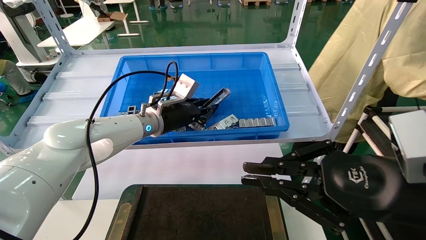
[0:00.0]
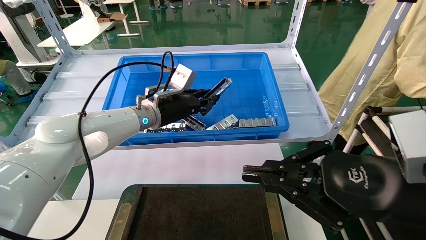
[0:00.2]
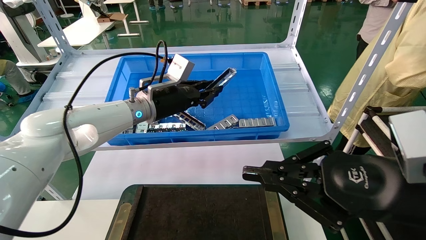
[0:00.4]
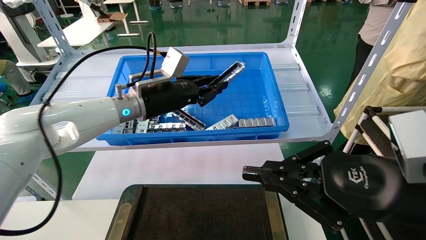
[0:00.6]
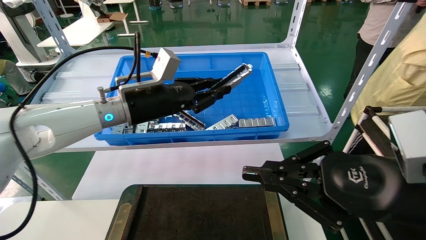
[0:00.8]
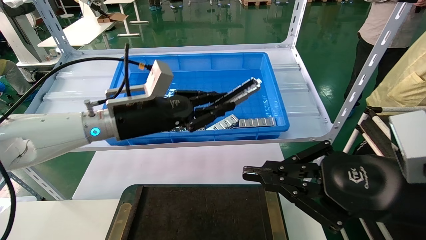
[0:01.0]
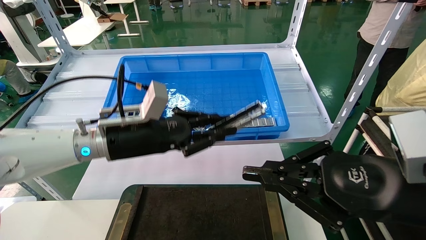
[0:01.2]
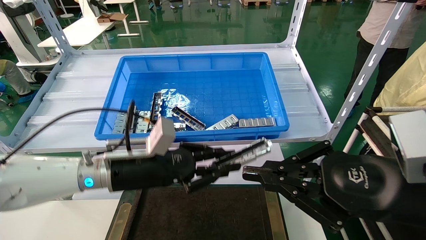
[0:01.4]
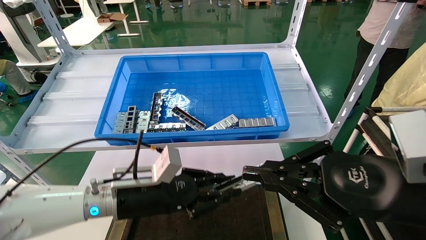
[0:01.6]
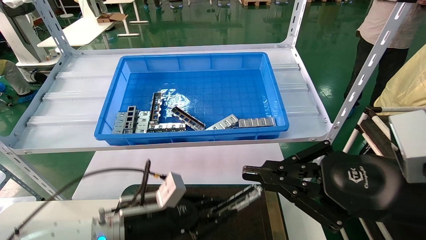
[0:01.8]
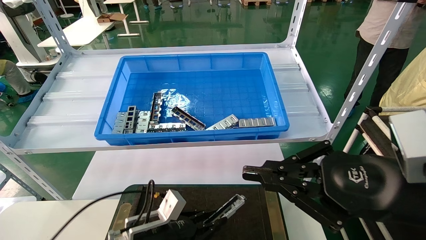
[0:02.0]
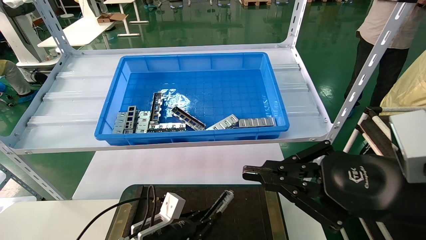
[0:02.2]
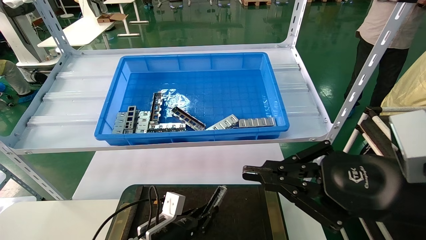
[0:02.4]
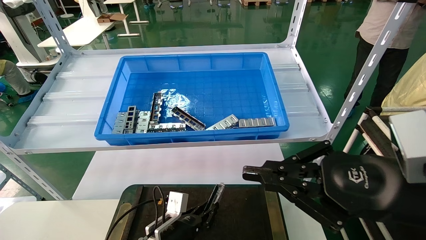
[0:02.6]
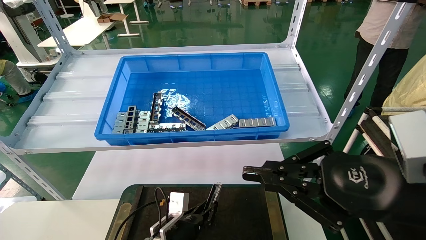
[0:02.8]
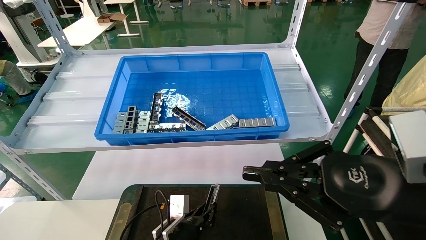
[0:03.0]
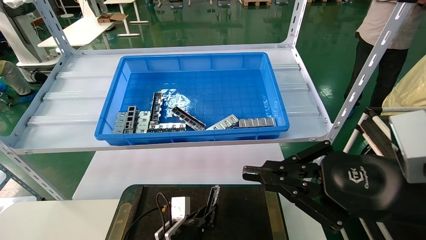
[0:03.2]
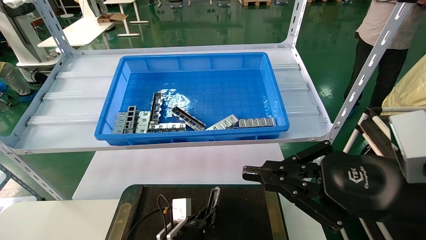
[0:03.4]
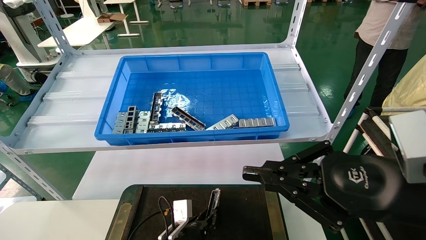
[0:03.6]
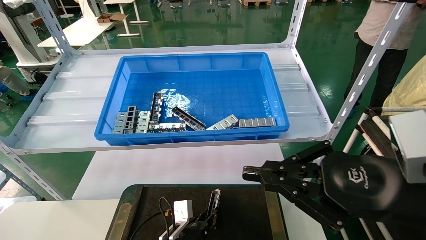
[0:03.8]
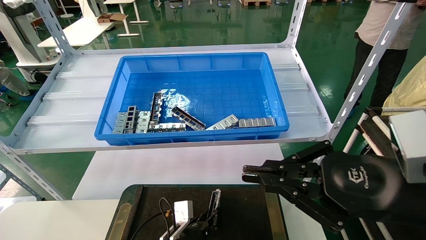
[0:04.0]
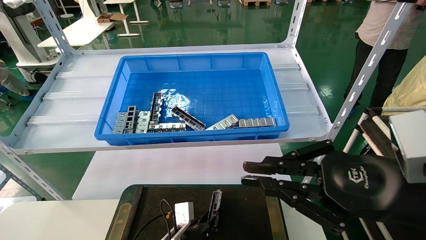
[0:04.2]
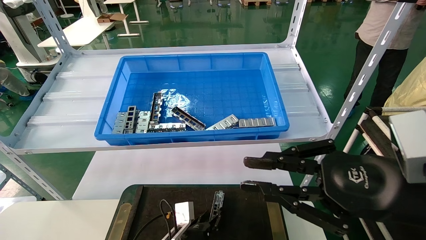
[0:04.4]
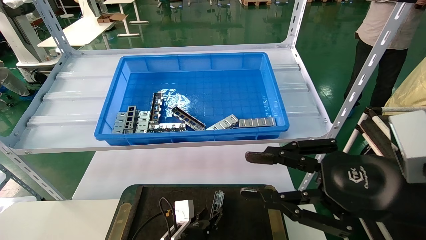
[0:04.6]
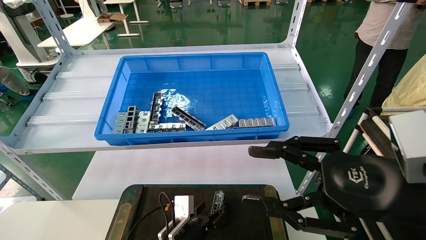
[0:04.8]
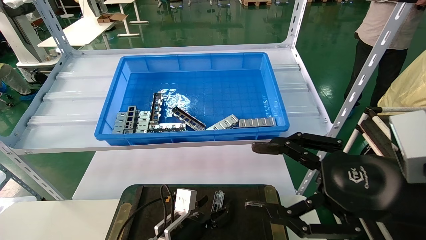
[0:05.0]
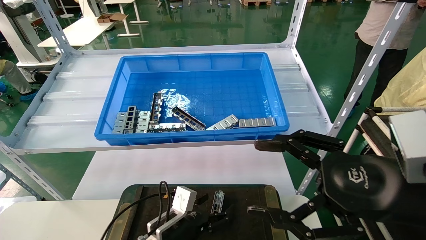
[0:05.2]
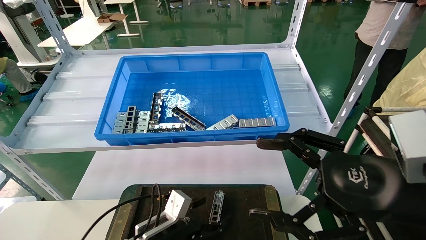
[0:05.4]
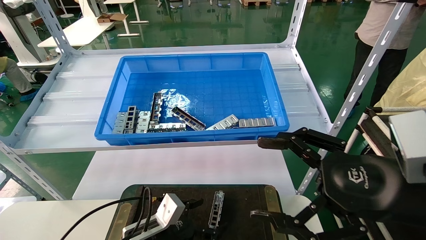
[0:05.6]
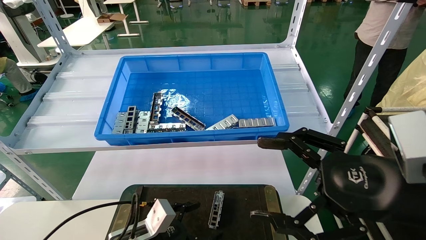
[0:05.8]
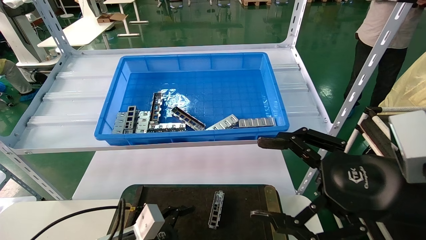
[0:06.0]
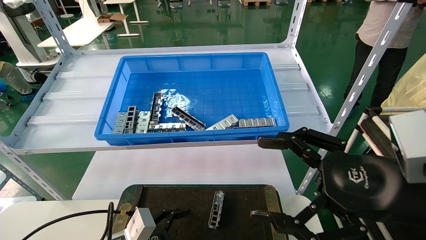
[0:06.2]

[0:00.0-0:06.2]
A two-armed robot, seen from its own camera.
Task of the whole recording: Grasp the part with one hand and place it on the black container.
Step, 0:00.0 to 0:04.2: Place the front USB bracket into the box.
0:00.0 to 0:01.6: The left gripper moves backward and downward, approximately 20 cm.
0:01.6 to 0:03.2: The left gripper goes roughly 20 cm downward.
0:03.2 to 0:04.6: The grippers stay close to where they were, moving slightly.
0:04.6 to 0:06.2: The left gripper moves to the left, backward and upward, roughly 15 cm, and opens. The right gripper opens.

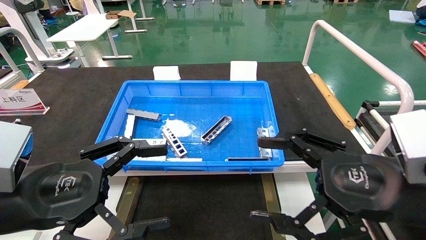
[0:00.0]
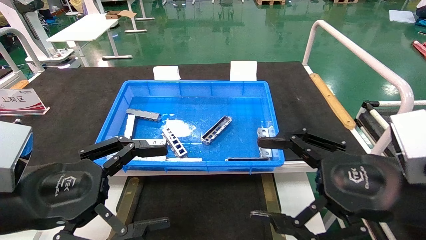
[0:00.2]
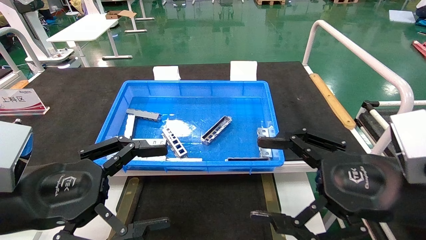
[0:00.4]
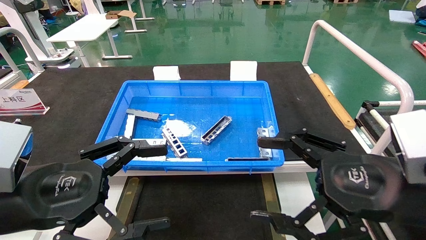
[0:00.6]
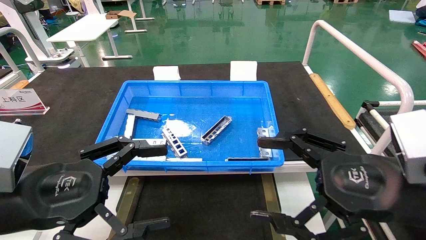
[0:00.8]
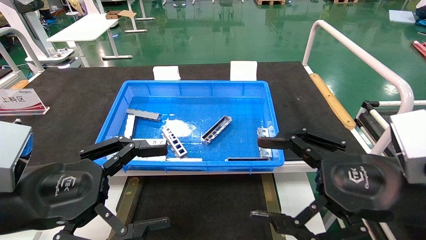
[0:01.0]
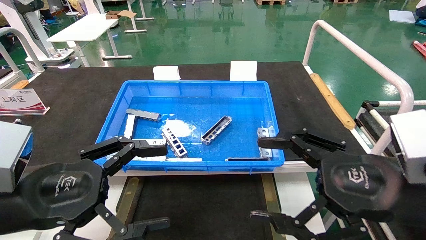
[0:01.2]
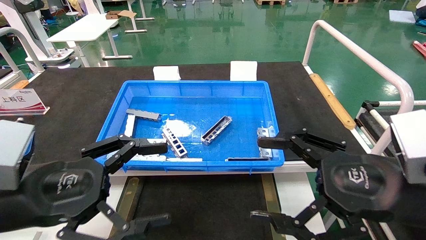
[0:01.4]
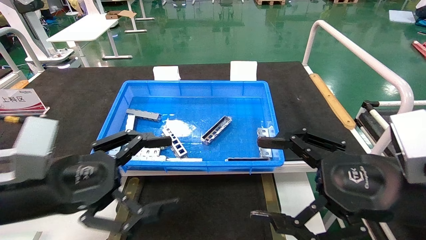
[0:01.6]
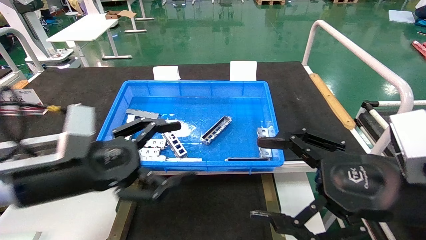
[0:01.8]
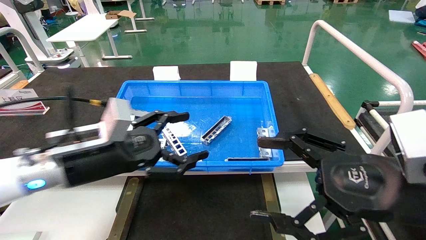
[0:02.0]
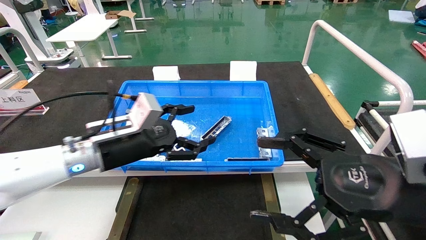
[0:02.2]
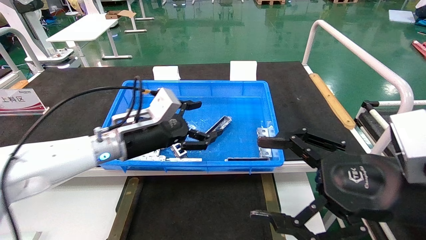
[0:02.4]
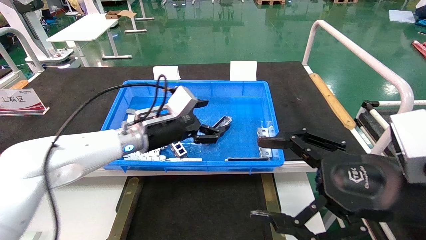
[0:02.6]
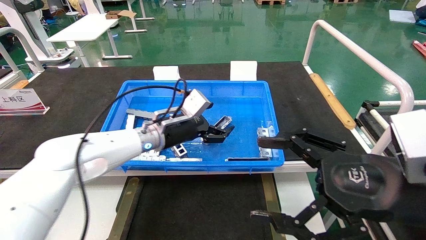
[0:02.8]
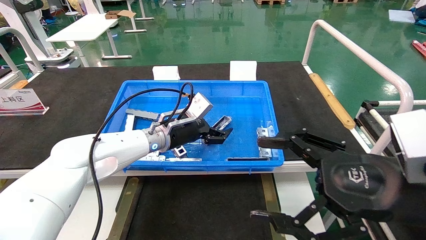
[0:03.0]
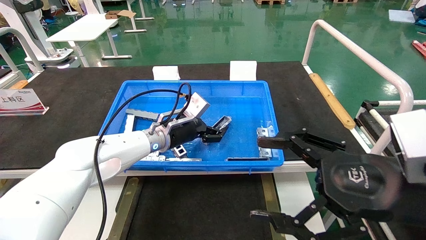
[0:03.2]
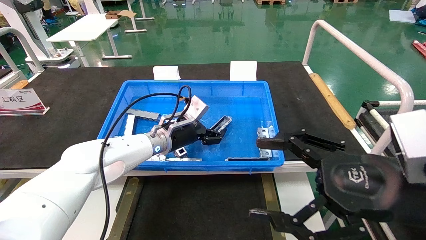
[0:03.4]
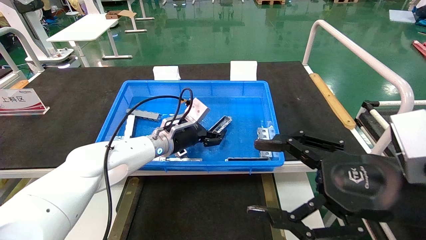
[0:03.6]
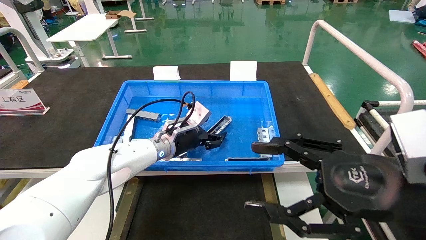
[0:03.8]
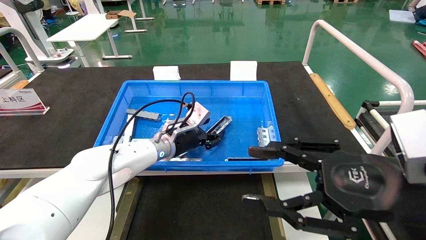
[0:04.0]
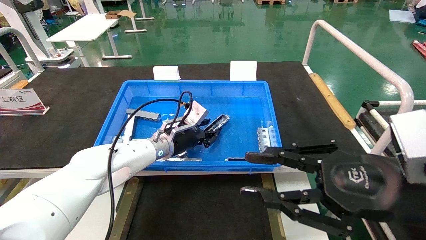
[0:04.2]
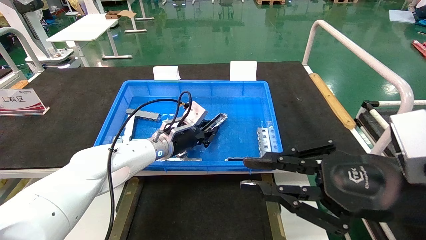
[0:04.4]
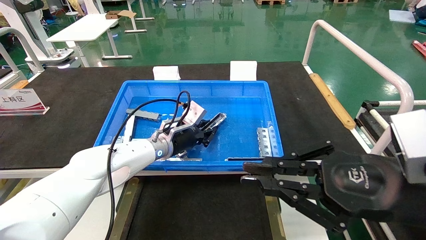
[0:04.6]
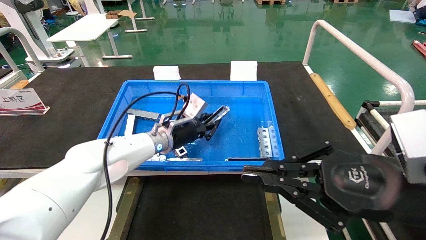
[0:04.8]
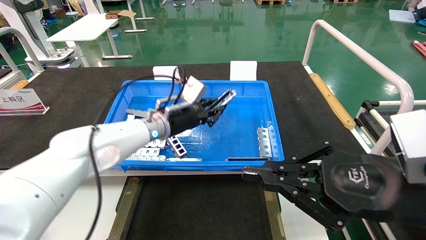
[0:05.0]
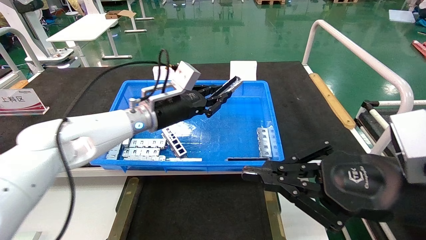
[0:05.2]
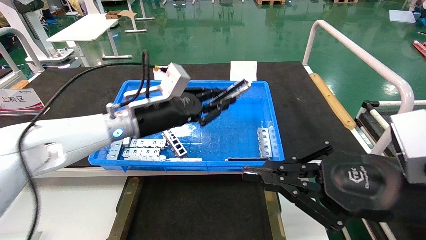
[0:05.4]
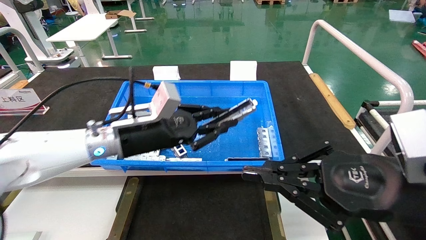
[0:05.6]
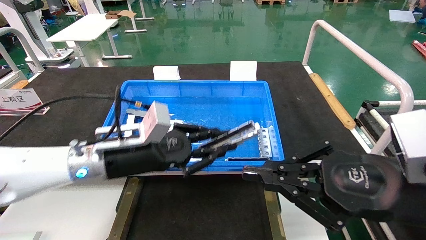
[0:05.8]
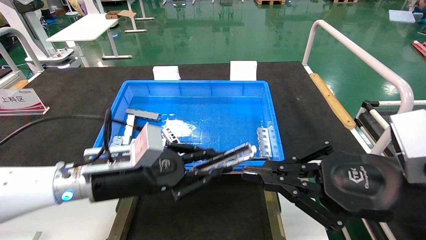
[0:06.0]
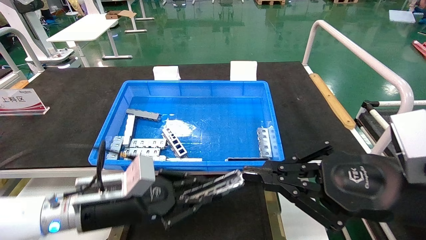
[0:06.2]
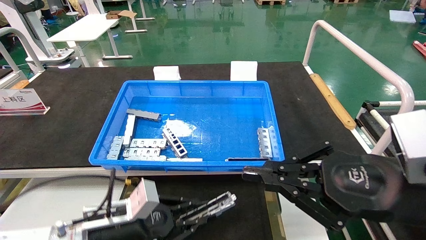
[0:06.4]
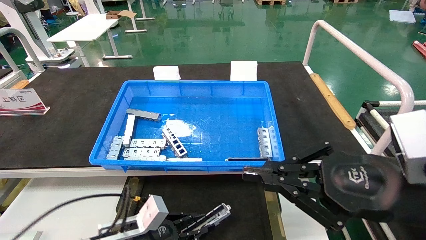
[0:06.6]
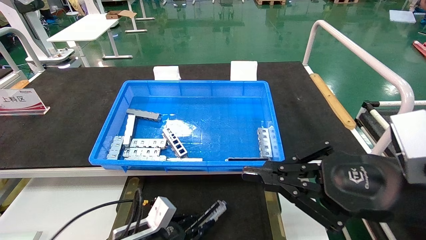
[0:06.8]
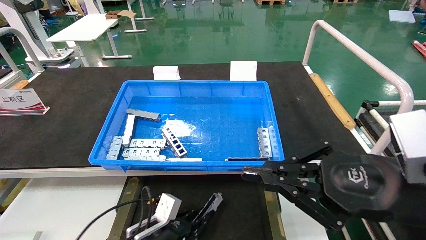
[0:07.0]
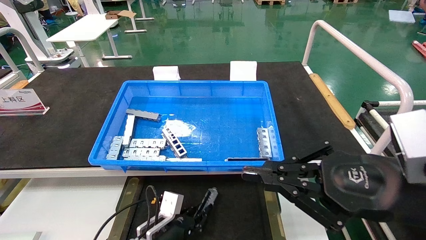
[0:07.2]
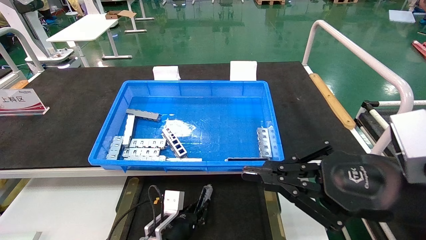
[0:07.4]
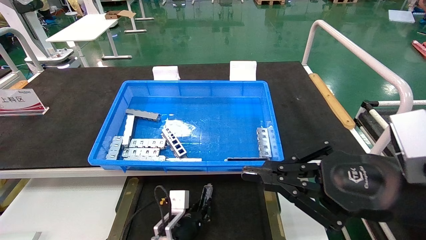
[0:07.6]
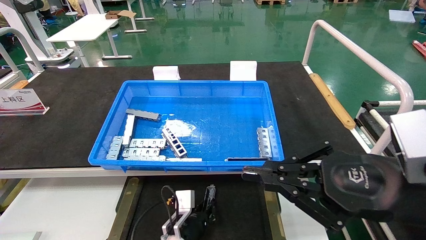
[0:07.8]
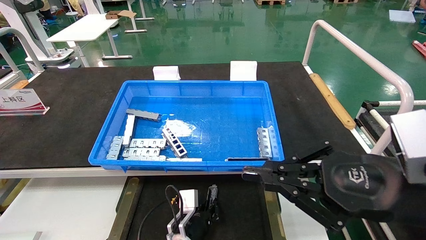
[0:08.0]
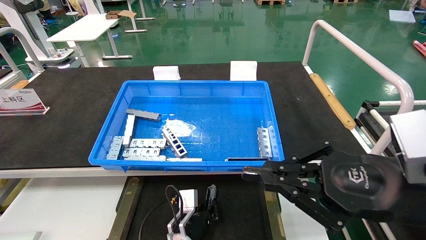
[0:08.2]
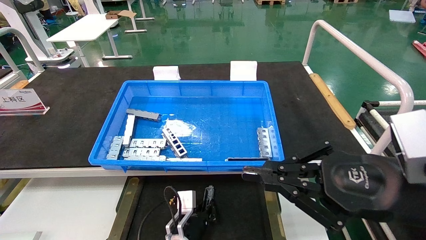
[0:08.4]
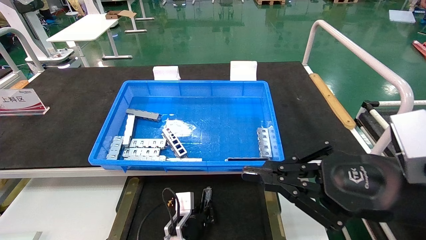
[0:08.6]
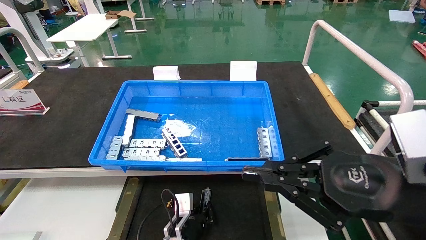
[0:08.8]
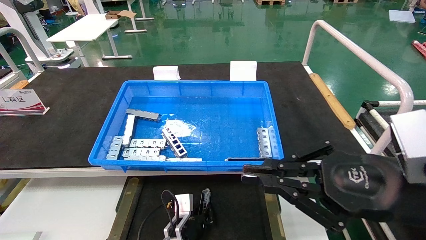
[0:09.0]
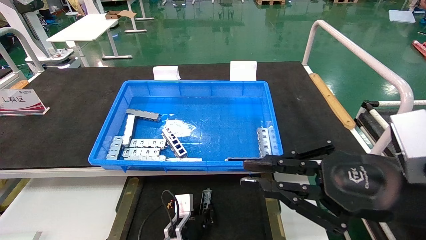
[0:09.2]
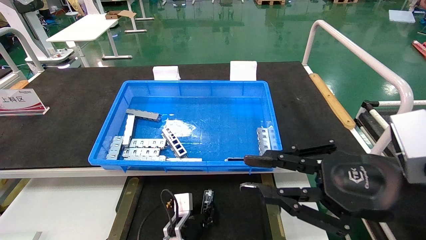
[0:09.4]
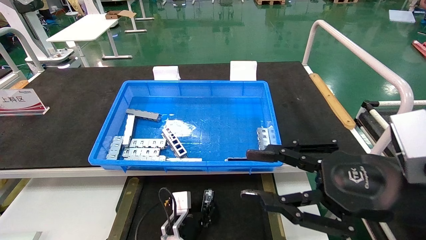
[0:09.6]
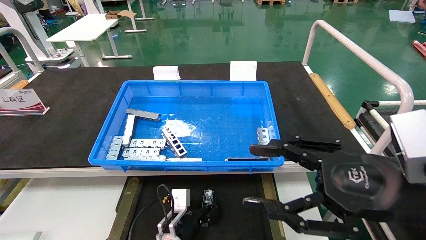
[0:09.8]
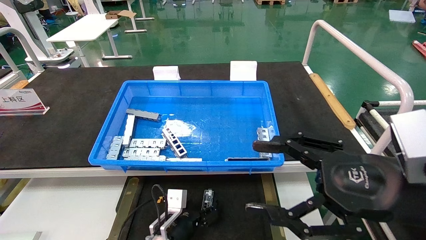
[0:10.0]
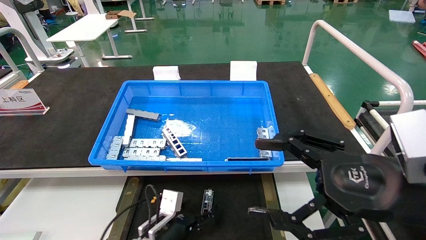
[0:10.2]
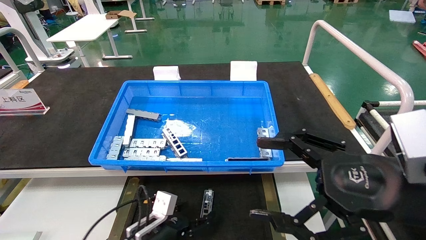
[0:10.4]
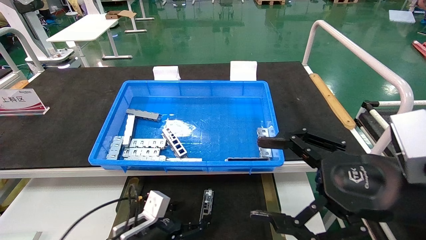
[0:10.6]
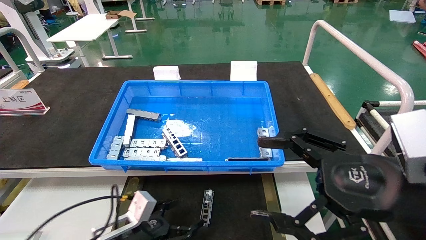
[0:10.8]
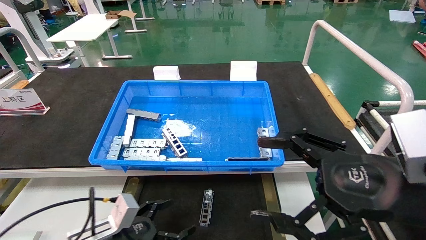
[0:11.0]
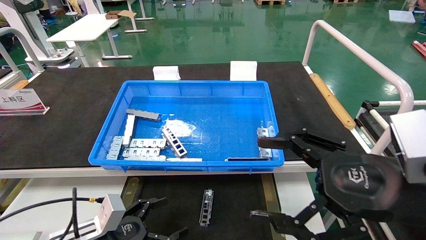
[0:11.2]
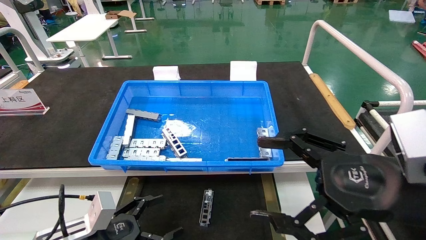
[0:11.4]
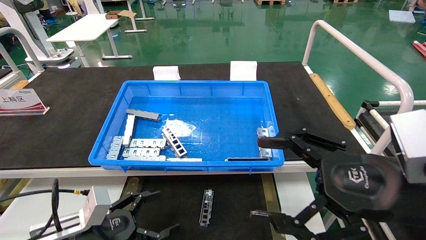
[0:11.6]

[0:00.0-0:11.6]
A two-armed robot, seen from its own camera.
Task of the whole recording: Grasp the part with one hand and place it on the black container.
Step, 0:01.4 to 0:04.4: Pick up the front USB bracket from the feeding area.
Step, 0:04.6 to 0:09.4: Place the front USB bracket into the box.
0:00.0 to 0:01.4: The two grippers keep their place.
0:01.4 to 0:02.8: The left gripper moves forward and to the right, approximately 30 cm.
0:02.8 to 0:04.4: The right gripper closes up. The left gripper shifts by some 5 cm, and closes.
0:04.4 to 0:05.8: The left gripper moves backward, some 15 cm.
0:05.8 to 0:07.2: The left gripper shifts some 25 cm downward.
0:07.2 to 0:08.8: The left gripper heads to the right, covering approximately 5 cm.
0:08.8 to 0:10.2: The left gripper shifts some 5 cm to the left, and opens. Meanwhile the right gripper opens up.
0:10.2 to 0:11.6: The left gripper goes roughly 20 cm to the left, upward and backward.
